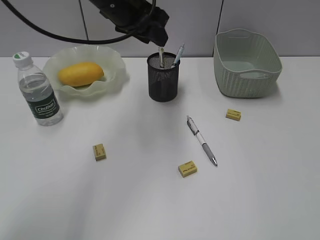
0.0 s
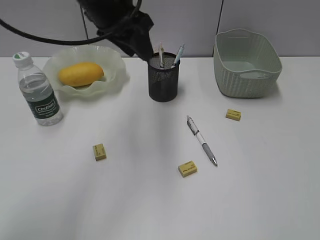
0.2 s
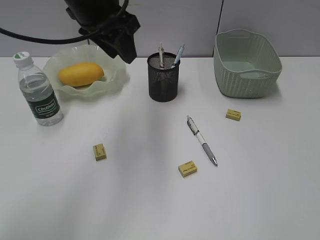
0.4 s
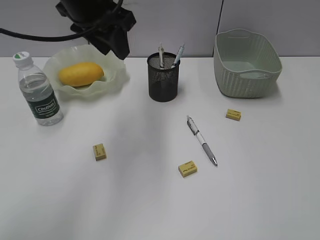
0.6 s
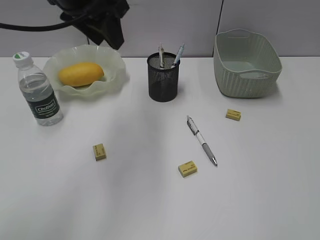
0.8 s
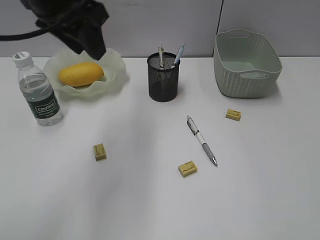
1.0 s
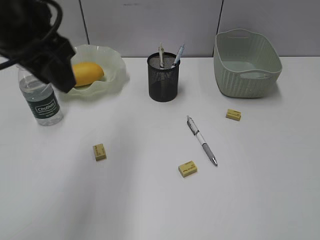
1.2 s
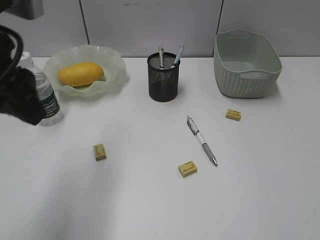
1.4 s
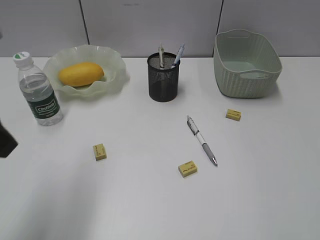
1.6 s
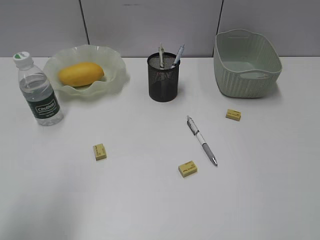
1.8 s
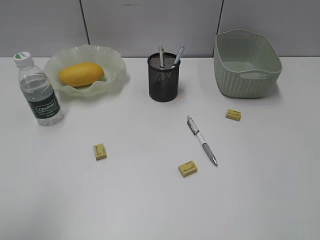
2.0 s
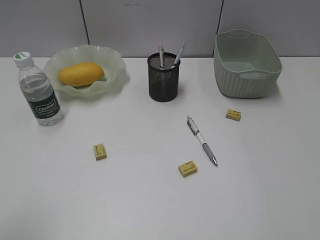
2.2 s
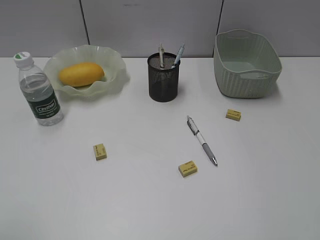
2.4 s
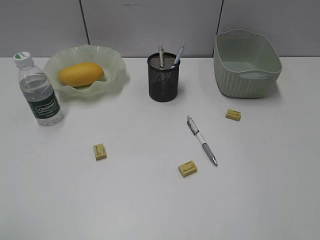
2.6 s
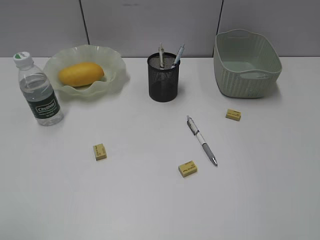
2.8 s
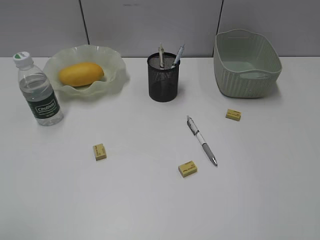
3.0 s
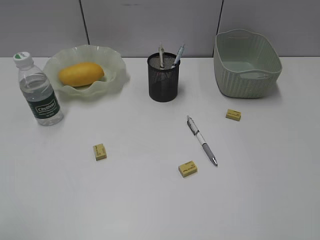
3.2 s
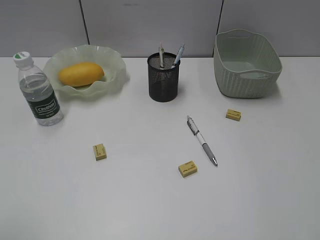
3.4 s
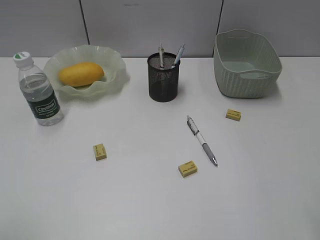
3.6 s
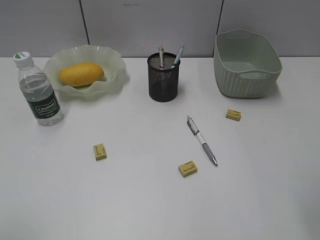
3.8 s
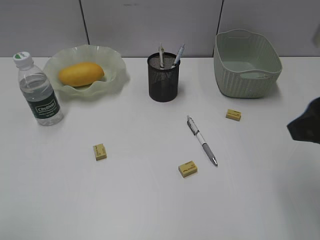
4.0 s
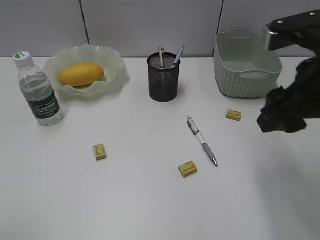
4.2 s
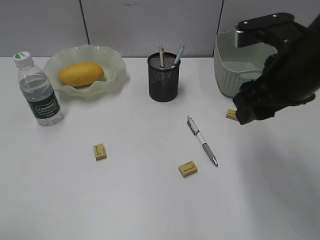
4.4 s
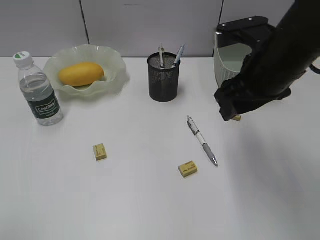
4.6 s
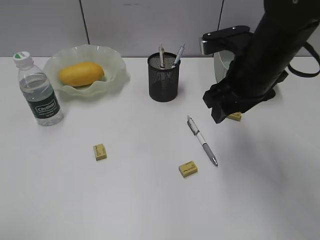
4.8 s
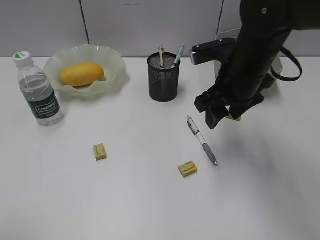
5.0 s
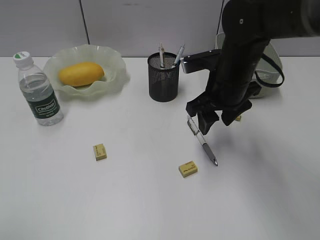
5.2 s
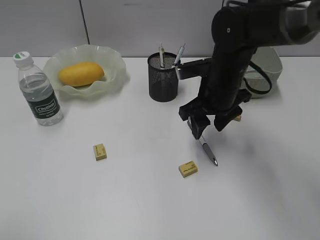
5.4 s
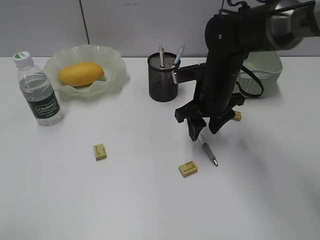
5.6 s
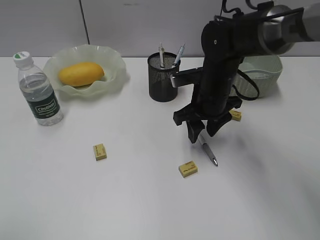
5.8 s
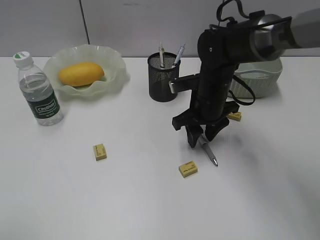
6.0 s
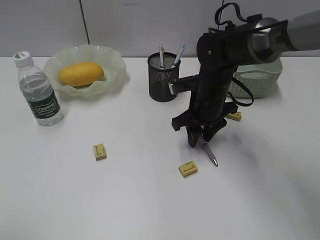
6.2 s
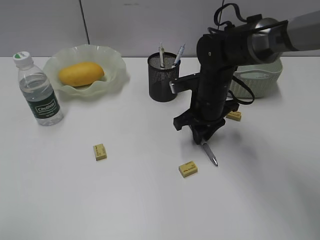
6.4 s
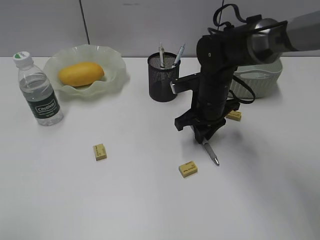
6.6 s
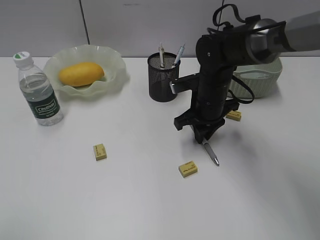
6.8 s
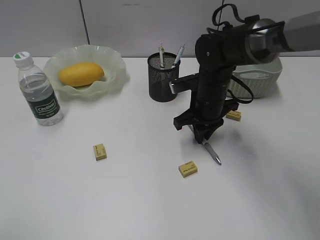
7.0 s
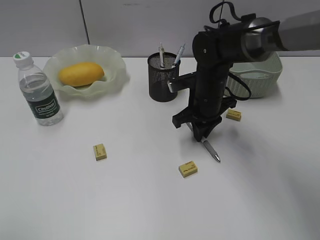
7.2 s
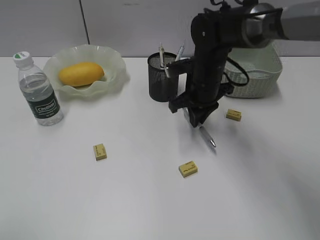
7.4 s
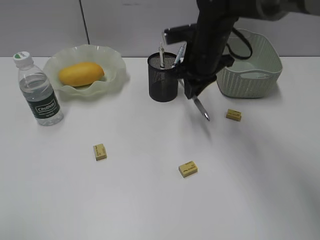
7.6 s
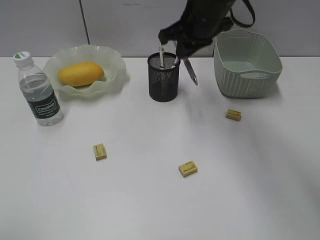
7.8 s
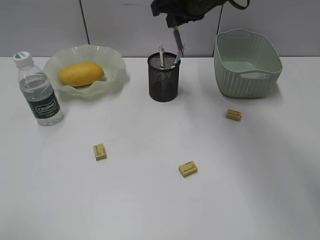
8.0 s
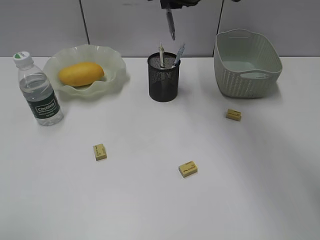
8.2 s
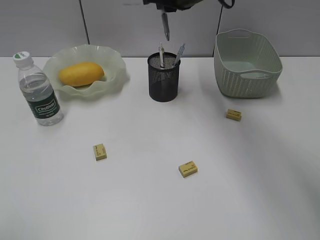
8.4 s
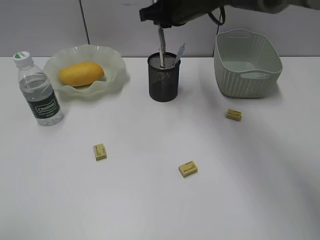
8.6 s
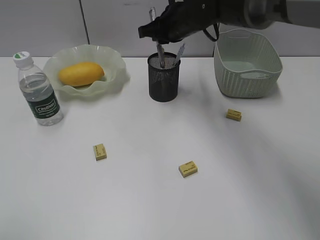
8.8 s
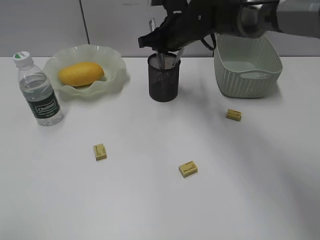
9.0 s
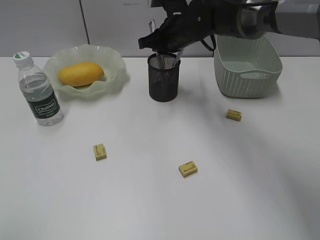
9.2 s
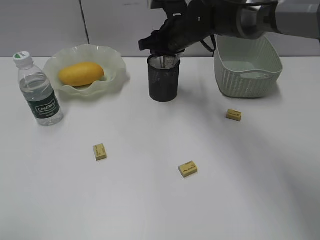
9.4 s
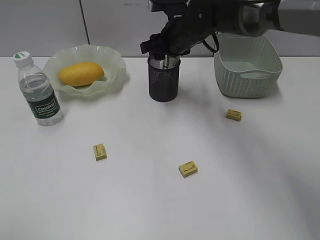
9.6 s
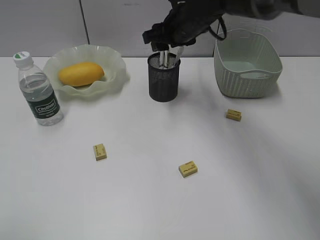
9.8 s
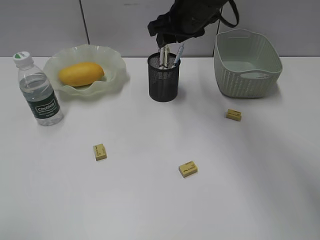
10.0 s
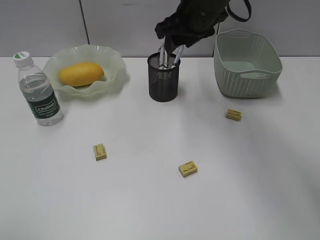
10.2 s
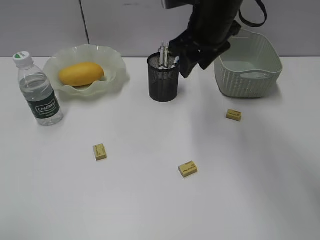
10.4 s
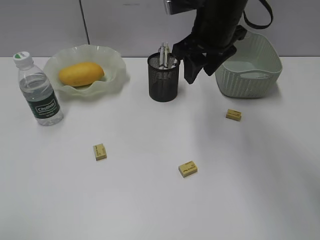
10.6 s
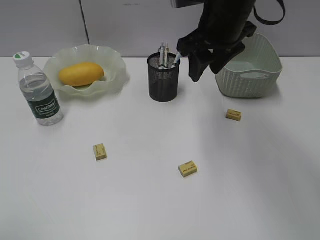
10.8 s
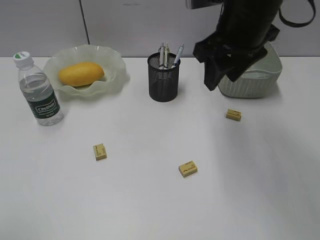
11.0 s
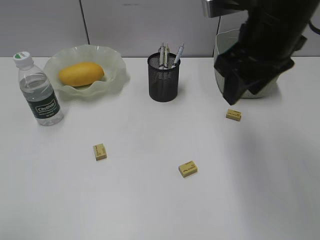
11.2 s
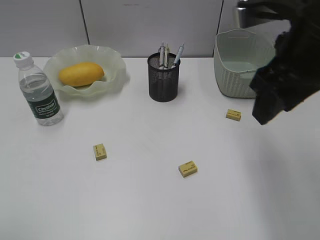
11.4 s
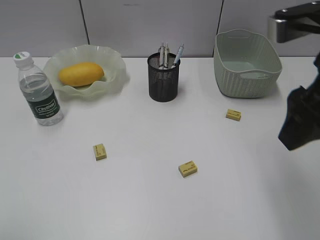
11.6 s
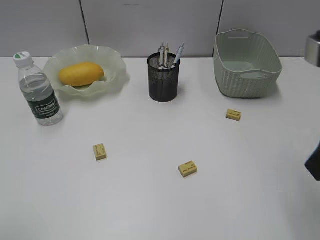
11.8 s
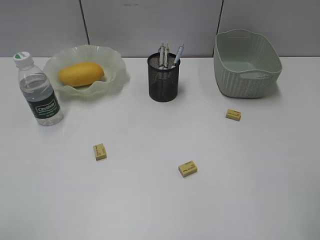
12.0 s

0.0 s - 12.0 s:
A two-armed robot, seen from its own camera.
Step, 0.0 s - 7.2 s: Grasp the gray pen with right gripper.
Step, 7.4 s - 9.6 s: Place the gray pen in pen holder with right gripper.
0.0 s - 1.6 s: The left gripper shifts some 25 cm backward and to the left.
1.6 s - 3.0 s: The left gripper moves backward and to the left, about 15 cm.
3.0 s - 4.4 s: The right gripper heads forward and to the left, covering approximately 20 cm.
4.4 s - 6.0 s: The right gripper heads downward, forward and to the left, covering roughly 20 cm.
6.0 s - 7.6 s: The right gripper travels upward by approximately 10 cm, and closes up.
7.6 s - 9.0 s: The right gripper shifts approximately 5 cm forward, and travels upward and back again, some 10 cm each way.
9.0 s - 10.4 s: The right gripper moves backward and upward, some 10 cm, and opens.
10.4 s - 12.0 s: The right gripper shifts some 30 cm backward and to the right.

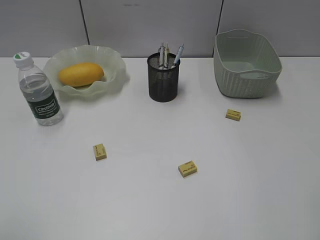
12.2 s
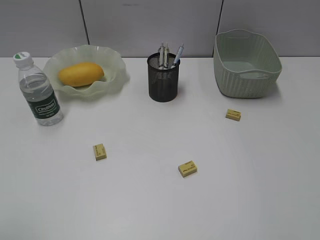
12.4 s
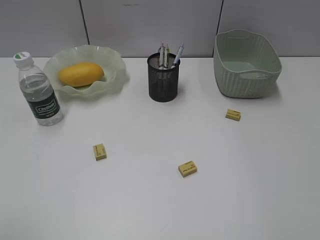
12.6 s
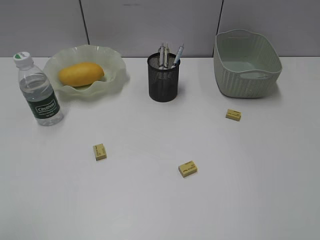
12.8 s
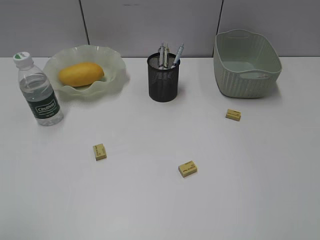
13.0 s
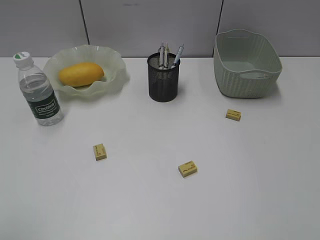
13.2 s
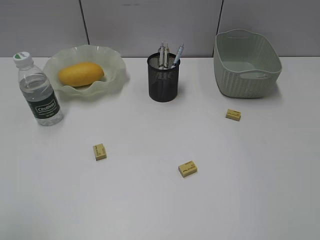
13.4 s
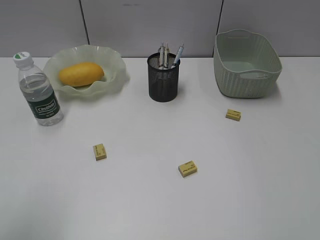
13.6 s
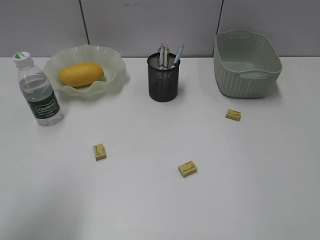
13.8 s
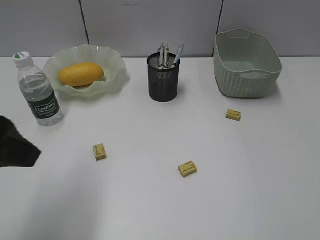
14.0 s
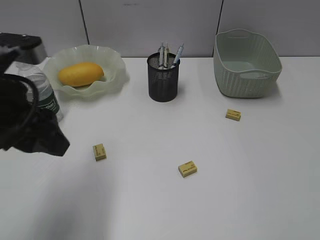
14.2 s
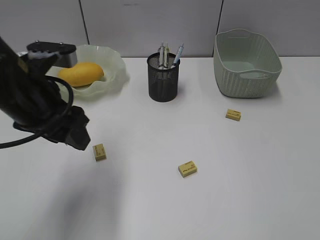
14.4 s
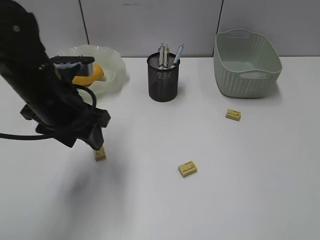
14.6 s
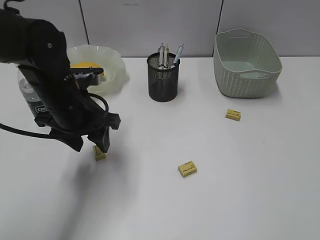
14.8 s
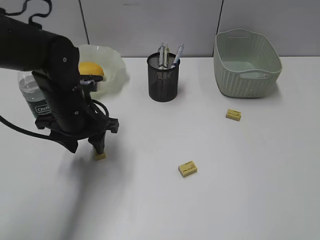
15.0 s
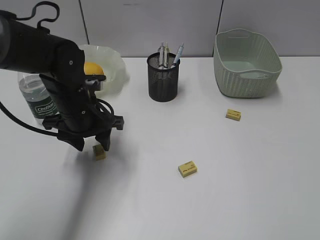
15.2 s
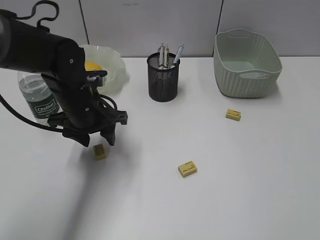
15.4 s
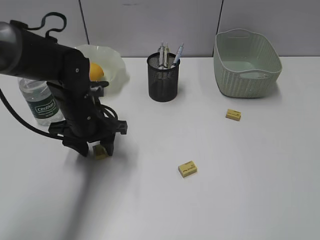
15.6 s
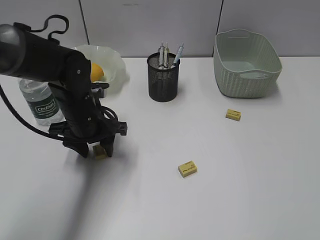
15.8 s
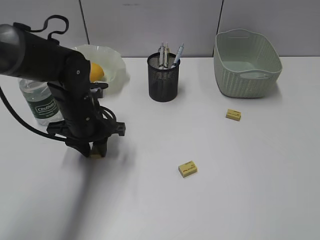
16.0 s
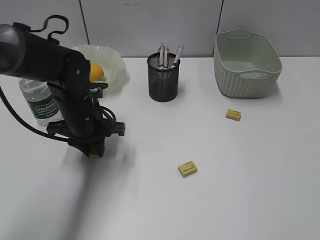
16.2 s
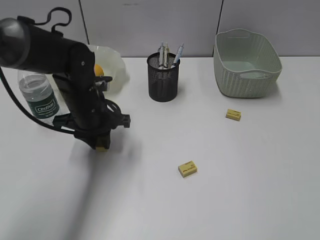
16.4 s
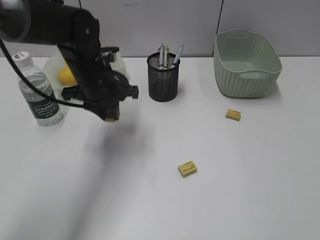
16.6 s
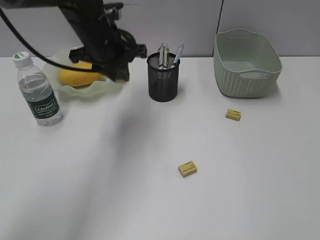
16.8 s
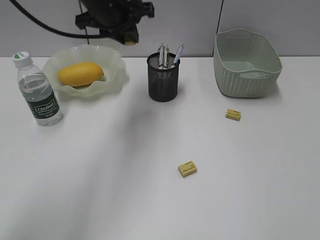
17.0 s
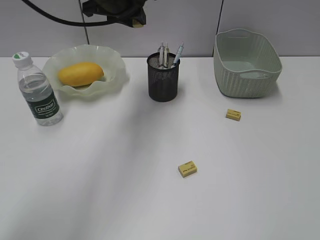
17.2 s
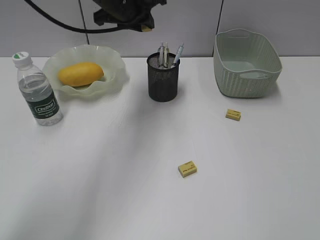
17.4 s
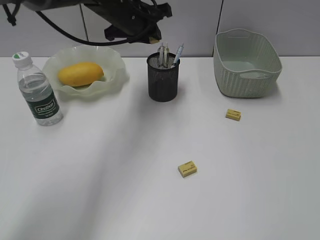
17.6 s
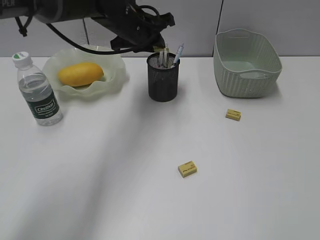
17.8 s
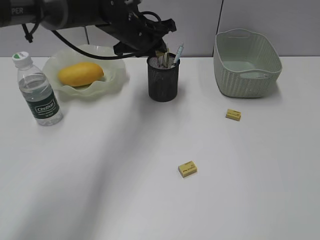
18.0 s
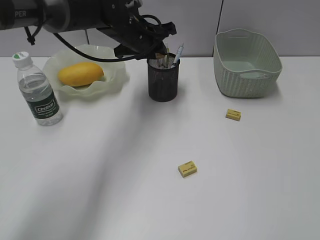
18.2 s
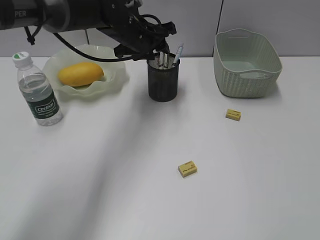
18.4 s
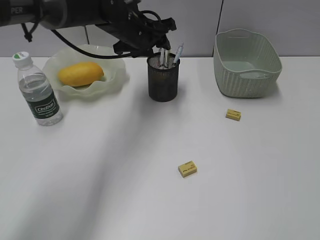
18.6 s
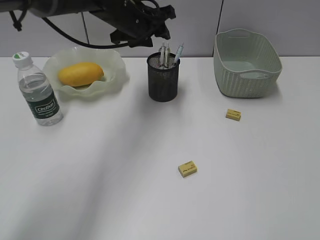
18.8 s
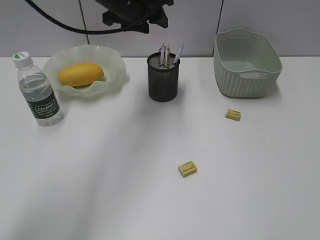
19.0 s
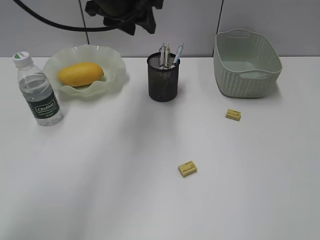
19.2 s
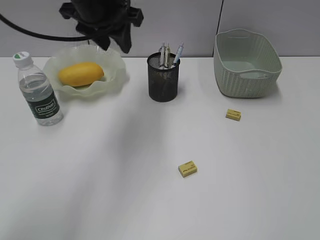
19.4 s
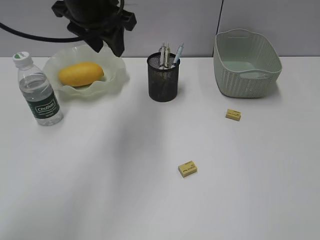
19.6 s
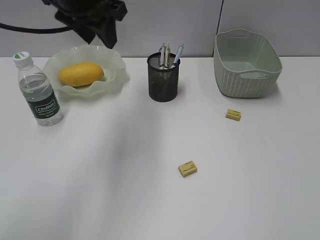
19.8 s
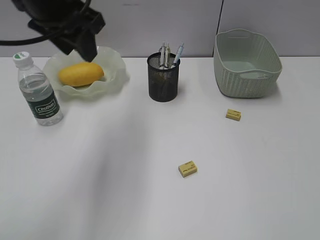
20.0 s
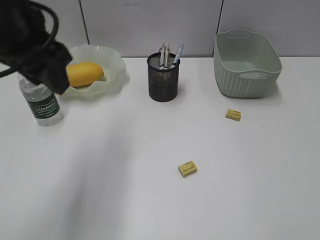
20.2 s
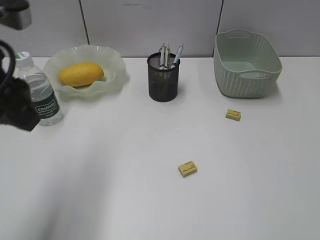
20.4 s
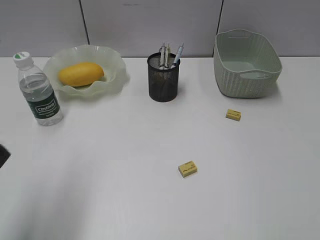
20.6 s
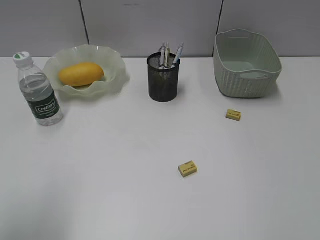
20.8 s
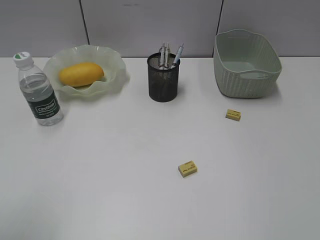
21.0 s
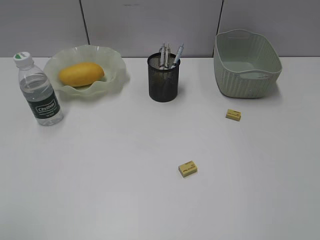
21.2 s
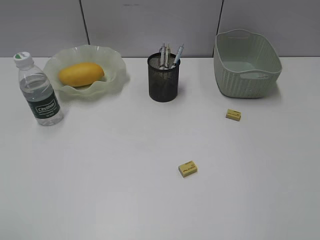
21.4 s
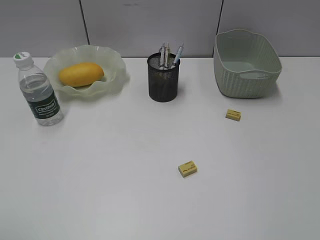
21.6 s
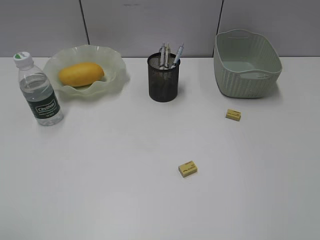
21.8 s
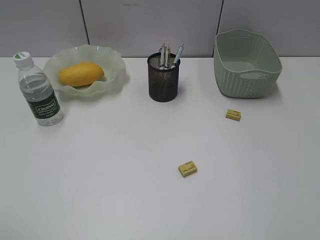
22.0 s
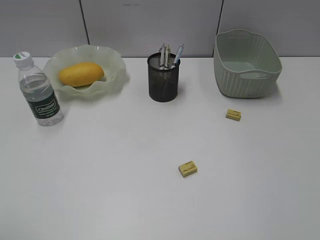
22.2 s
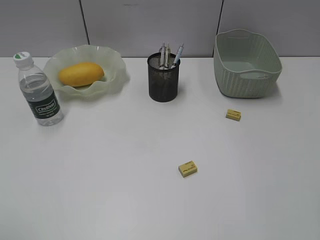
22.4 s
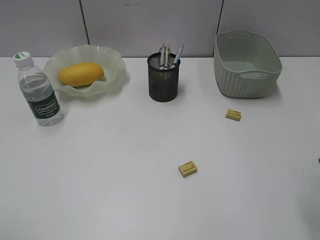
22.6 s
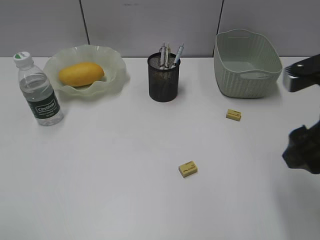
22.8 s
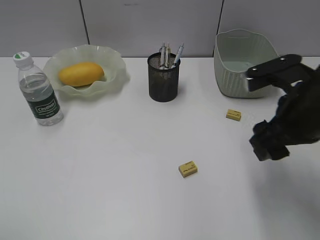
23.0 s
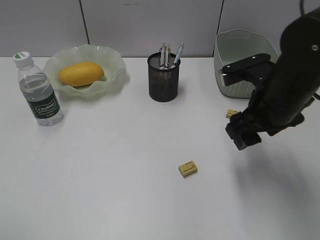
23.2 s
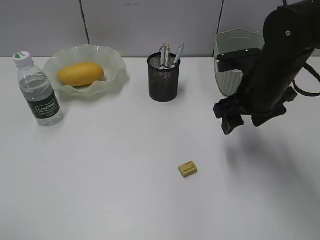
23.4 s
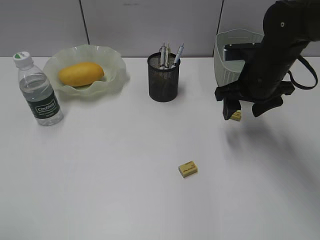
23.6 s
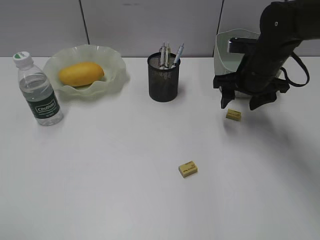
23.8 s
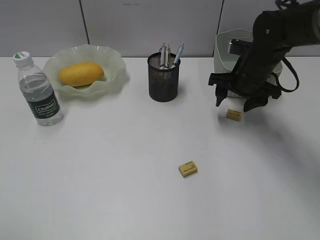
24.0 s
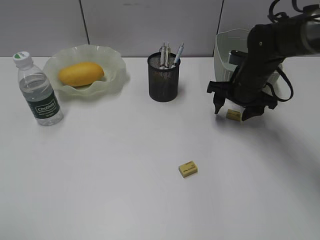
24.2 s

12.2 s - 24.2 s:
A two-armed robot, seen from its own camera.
Step, 12.2 s - 16.2 s: Grasp the eraser with left gripper.
Step, 16.4 s - 18.4 s: Place the eraser in pen holder with left gripper.
12.2 s - 13.8 s: The left gripper heads forward and to the right, covering some 10 cm.
13.8 s - 15.2 s: The left gripper heads forward, downward and to the right, covering roughly 30 cm.
15.2 s - 16.6 s: The left gripper moves about 5 cm, and closes.
16.6 s - 18.2 s: The left gripper heads forward and to the right, covering about 10 cm, and reaches some 10 cm upward, then returns.
18.2 s - 19.8 s: The left gripper shifts about 20 cm upward, backward and to the left.
19.8 s - 21.2 s: The left gripper shifts some 40 cm backward and to the left.
22.6 s - 24.2 s: The right gripper moves forward and downward, roughly 30 cm.
